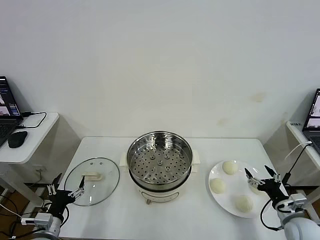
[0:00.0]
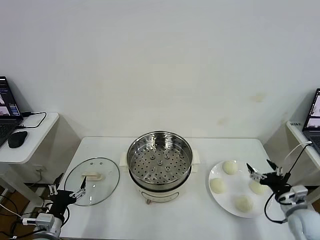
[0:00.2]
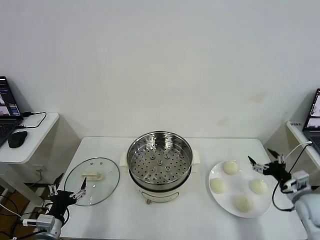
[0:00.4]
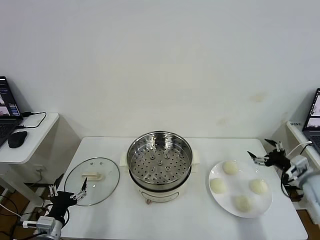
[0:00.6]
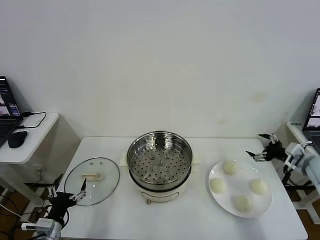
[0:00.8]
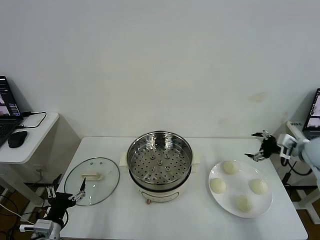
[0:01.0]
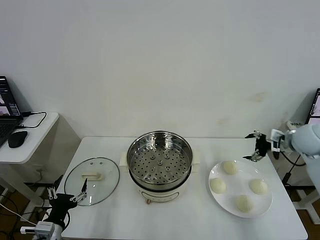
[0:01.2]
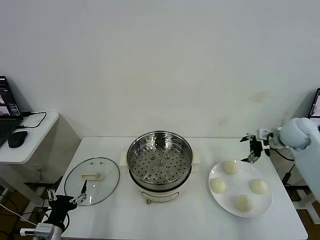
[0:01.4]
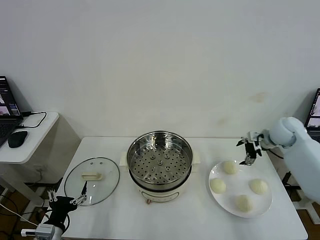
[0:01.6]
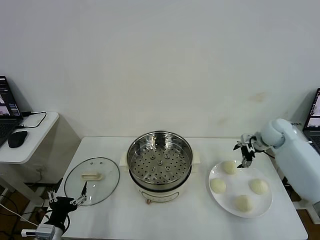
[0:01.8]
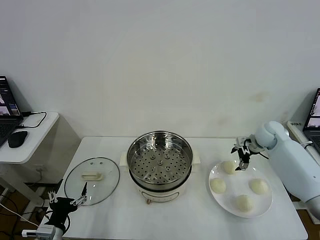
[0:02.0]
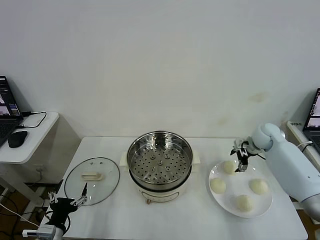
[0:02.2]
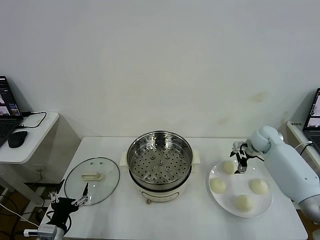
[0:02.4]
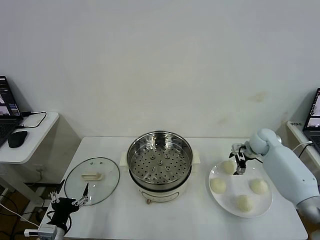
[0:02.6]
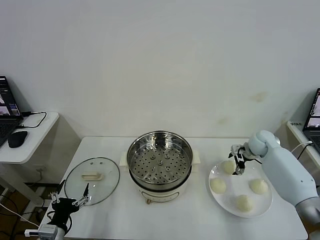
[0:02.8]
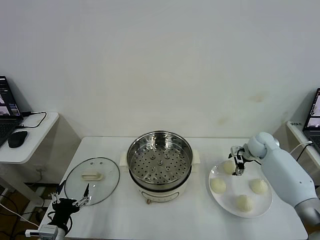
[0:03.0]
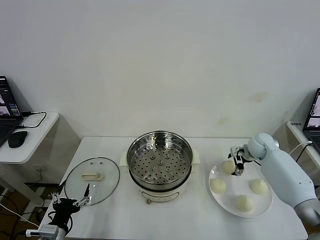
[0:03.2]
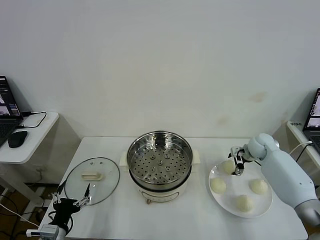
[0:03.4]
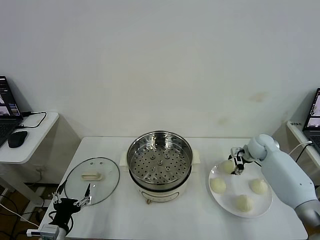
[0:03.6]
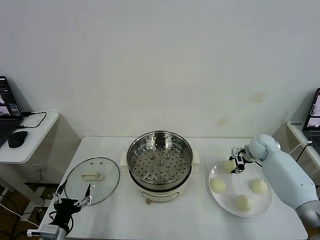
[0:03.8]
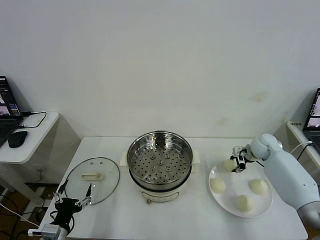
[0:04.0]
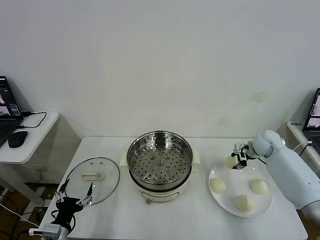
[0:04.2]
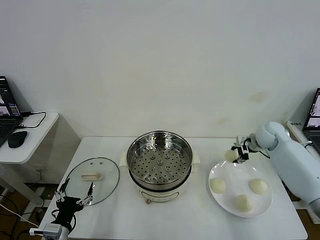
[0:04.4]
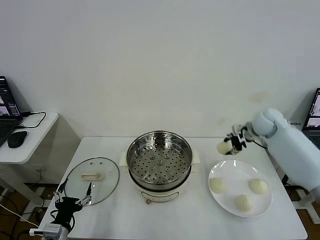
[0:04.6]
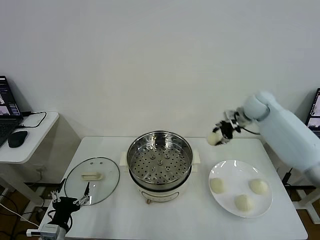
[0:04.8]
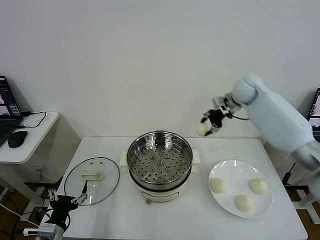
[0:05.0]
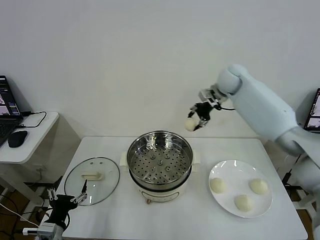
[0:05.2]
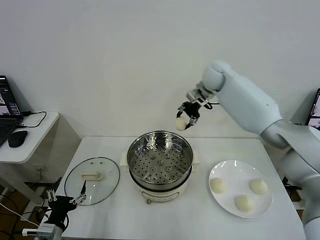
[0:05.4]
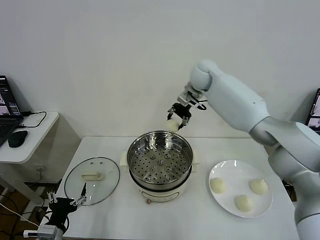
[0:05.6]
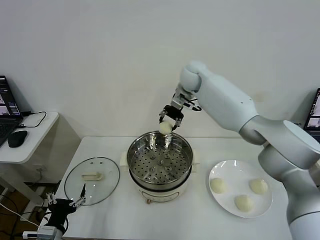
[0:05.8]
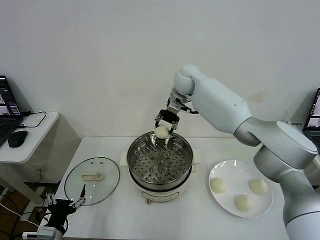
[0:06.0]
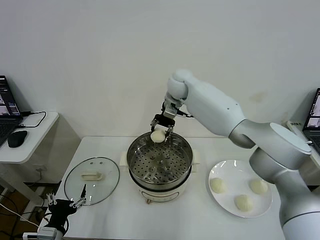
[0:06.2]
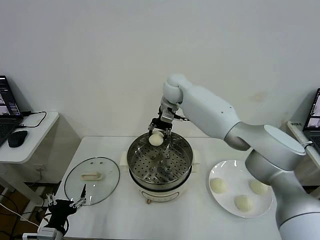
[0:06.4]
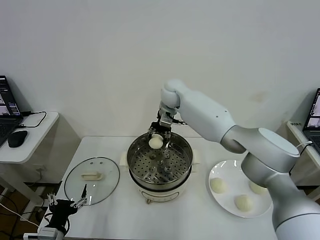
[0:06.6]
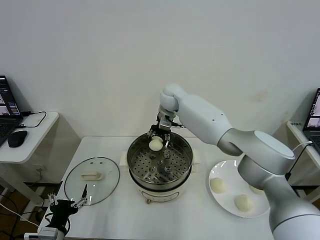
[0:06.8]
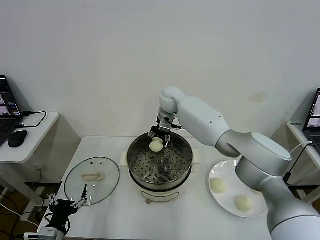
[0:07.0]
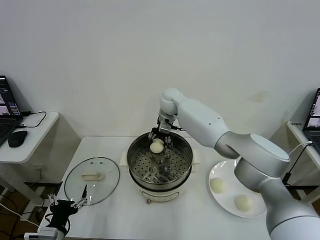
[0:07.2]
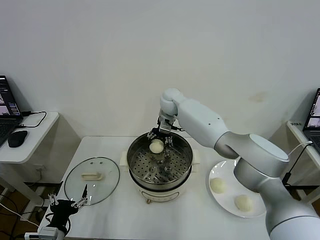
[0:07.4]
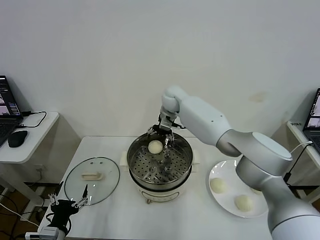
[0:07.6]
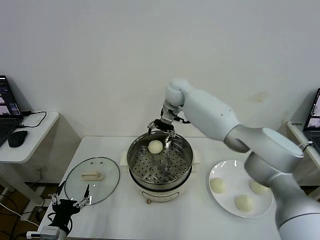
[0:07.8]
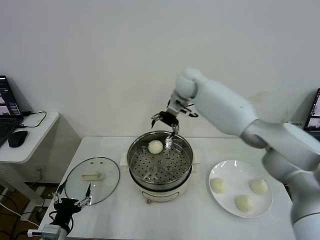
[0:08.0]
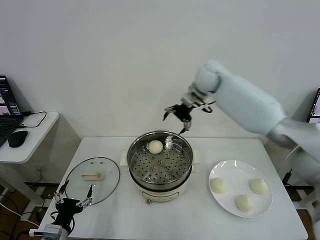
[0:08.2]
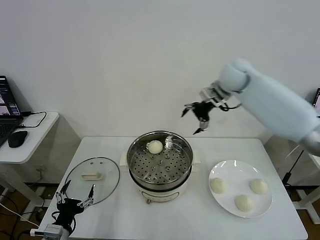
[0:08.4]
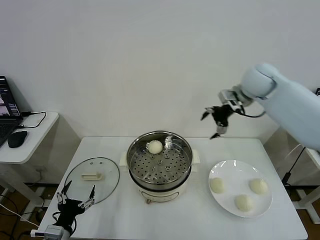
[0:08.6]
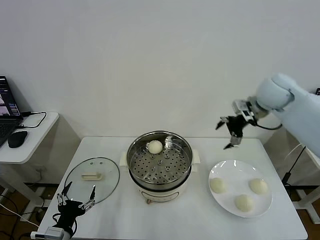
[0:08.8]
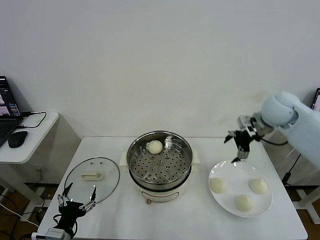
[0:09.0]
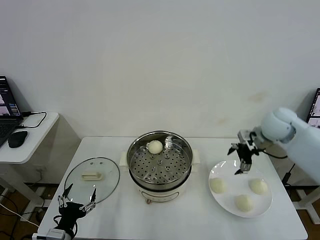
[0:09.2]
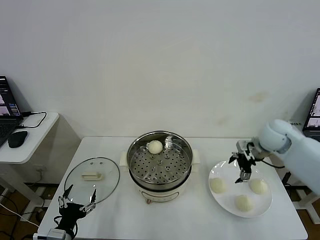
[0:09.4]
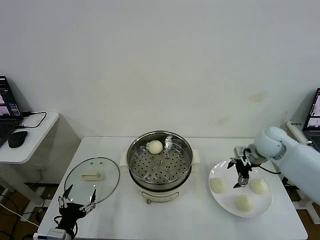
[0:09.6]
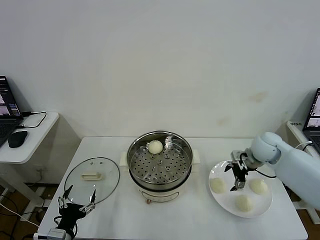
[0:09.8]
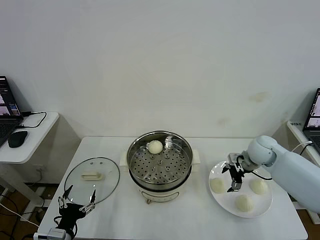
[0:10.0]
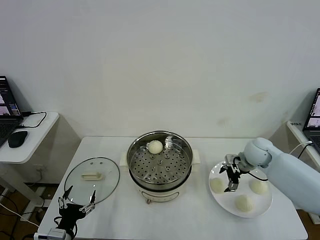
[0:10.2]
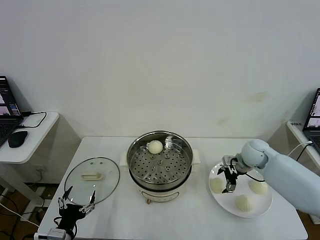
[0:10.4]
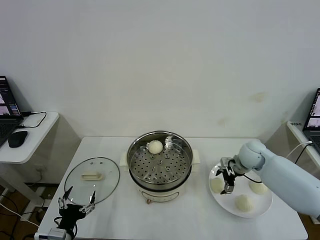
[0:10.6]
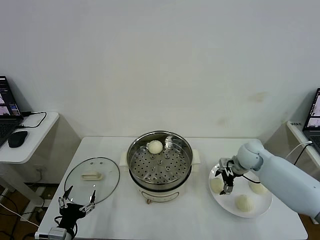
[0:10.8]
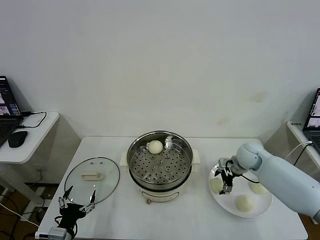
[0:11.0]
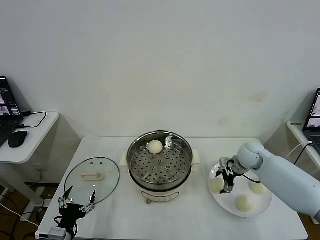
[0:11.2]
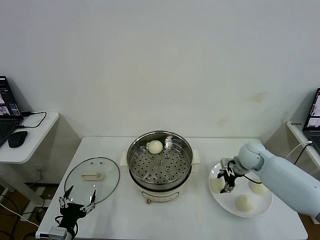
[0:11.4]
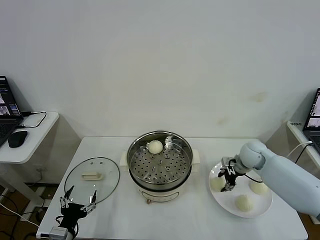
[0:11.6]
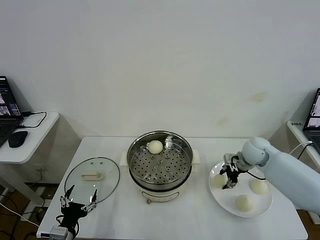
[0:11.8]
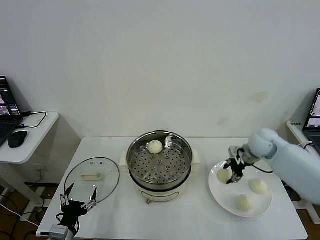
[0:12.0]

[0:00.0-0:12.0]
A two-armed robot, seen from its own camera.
Task of the whole recording: take steamed baozi put them in steamer then cover it.
Step, 0.0 to 3.6 s: Grasp the baozi in the plate with right gripper.
Step, 3.8 to 7.6 s: Place the baozi on the steamer with right gripper.
Step, 8.0 to 11.2 s: Grasp the baozi in the plate with right gripper.
1.6 to 3.0 s: The right gripper shifts roughly 10 cm downward.
3.0 to 4.4 s: The right gripper travels upward by approximately 10 cm, and closes its fingers.
4.4 to 6.0 s: The right gripper is displaced to the left by some 30 cm.
6.0 to 7.6 s: The right gripper opens.
7.6 to 9.0 s: The right gripper heads to the right and backward, covering some 35 cm.
9.0 to 10.4 s: The right gripper is displaced downward by about 15 cm.
10.4 to 12.0 s: The right gripper shifts approximately 10 cm upward, and closes.

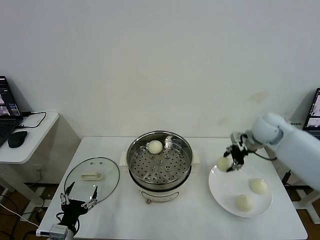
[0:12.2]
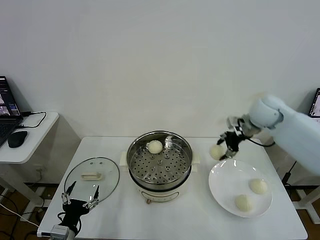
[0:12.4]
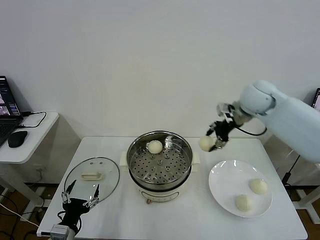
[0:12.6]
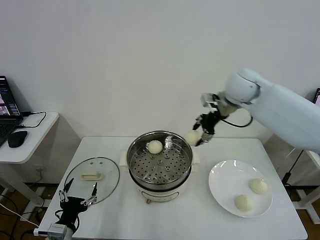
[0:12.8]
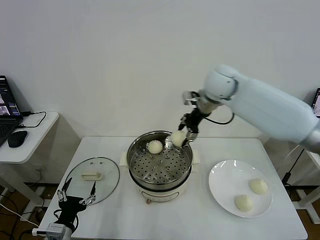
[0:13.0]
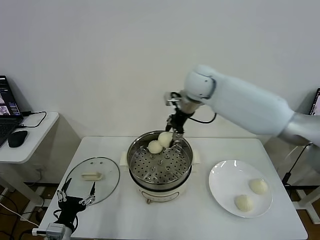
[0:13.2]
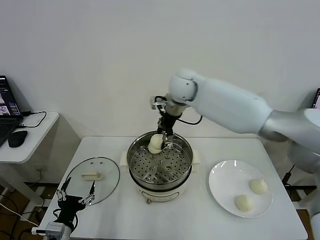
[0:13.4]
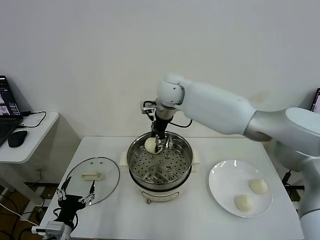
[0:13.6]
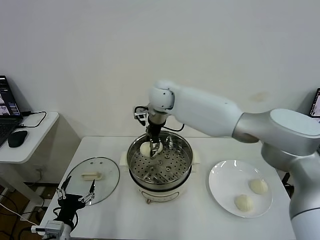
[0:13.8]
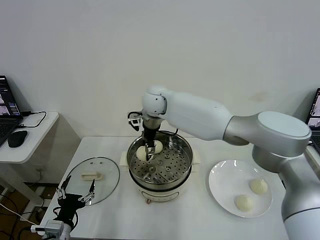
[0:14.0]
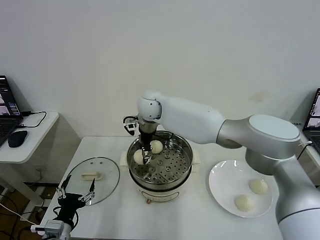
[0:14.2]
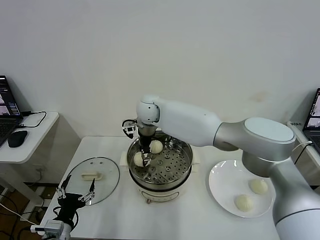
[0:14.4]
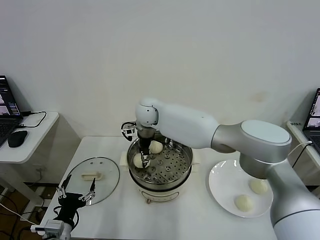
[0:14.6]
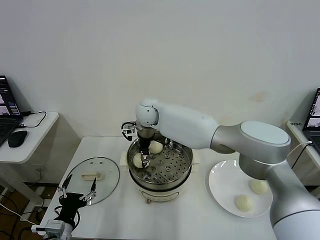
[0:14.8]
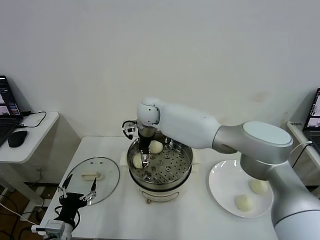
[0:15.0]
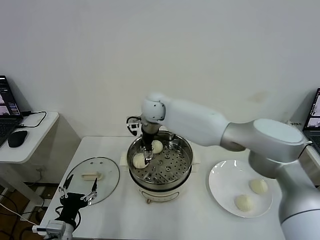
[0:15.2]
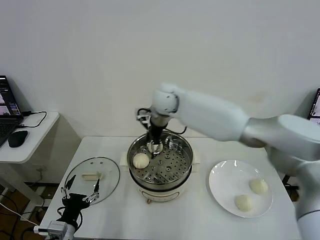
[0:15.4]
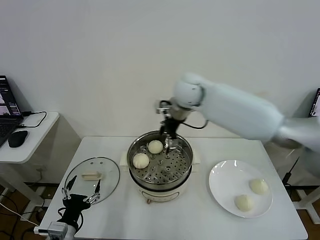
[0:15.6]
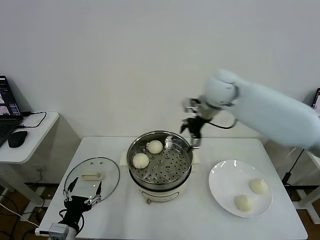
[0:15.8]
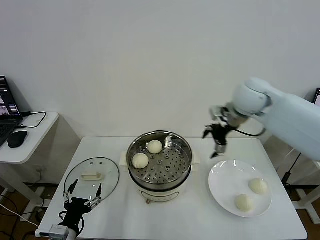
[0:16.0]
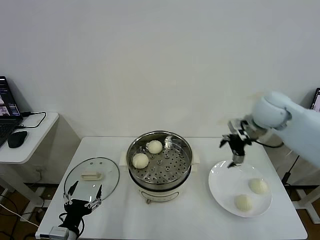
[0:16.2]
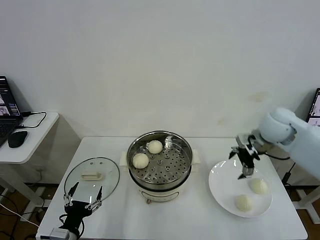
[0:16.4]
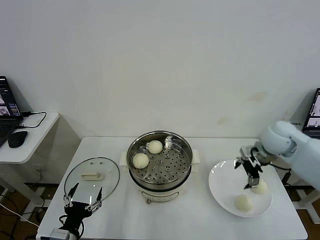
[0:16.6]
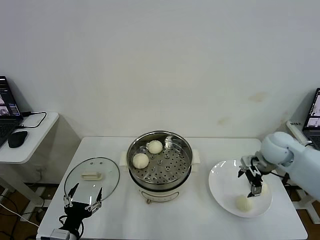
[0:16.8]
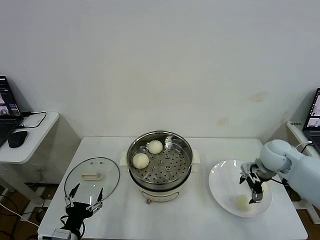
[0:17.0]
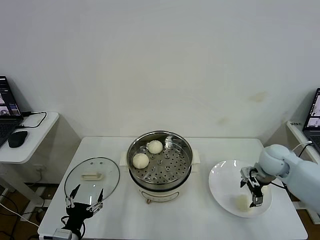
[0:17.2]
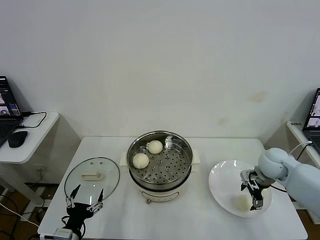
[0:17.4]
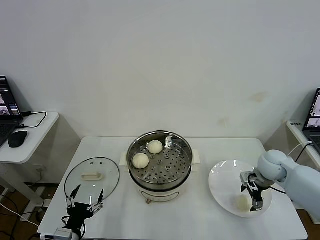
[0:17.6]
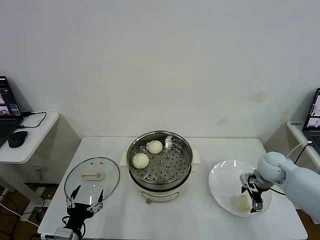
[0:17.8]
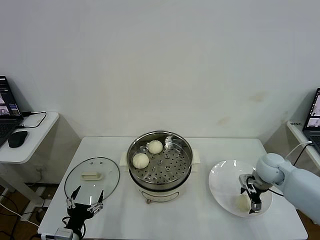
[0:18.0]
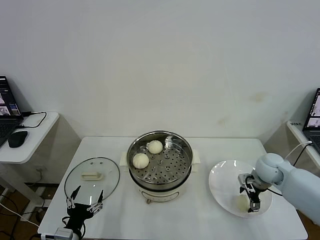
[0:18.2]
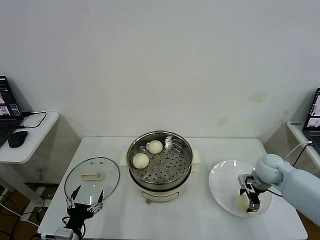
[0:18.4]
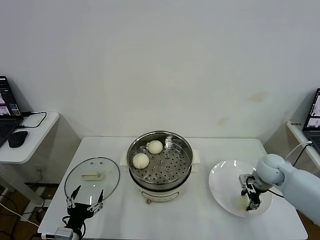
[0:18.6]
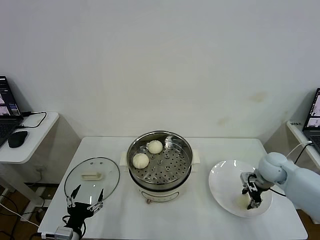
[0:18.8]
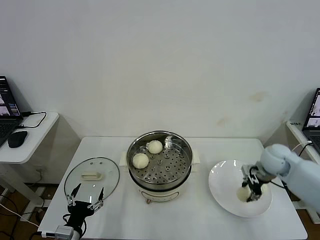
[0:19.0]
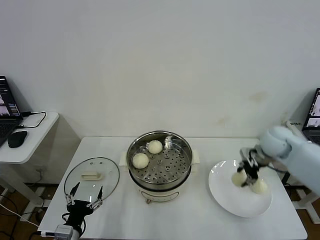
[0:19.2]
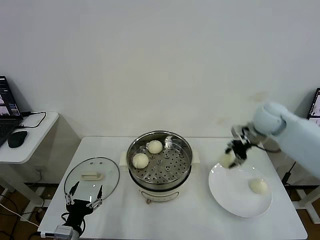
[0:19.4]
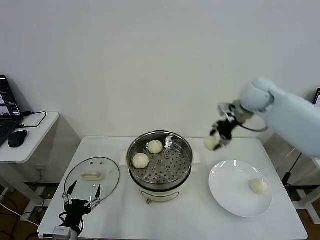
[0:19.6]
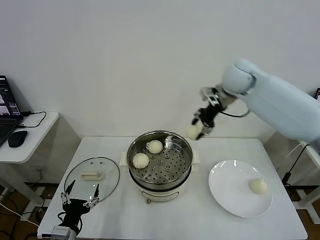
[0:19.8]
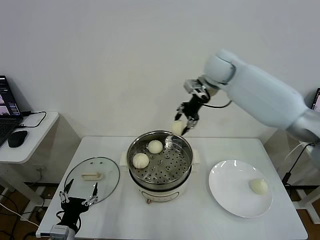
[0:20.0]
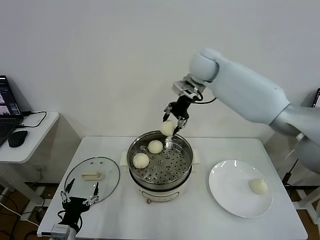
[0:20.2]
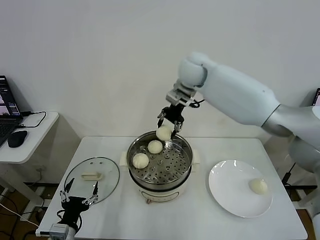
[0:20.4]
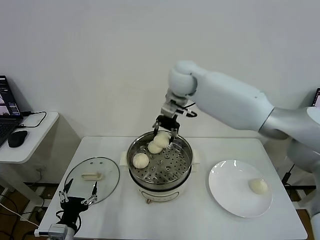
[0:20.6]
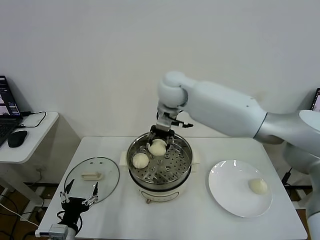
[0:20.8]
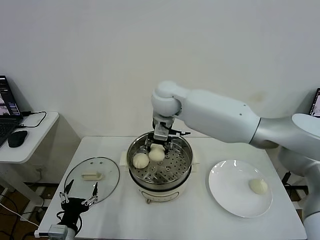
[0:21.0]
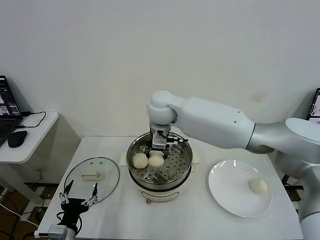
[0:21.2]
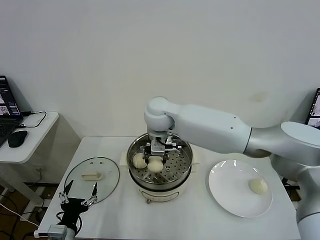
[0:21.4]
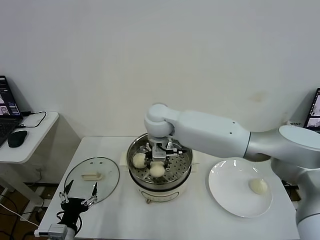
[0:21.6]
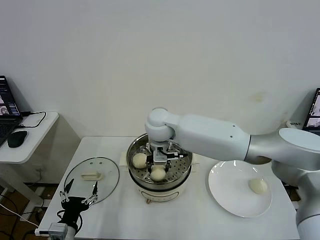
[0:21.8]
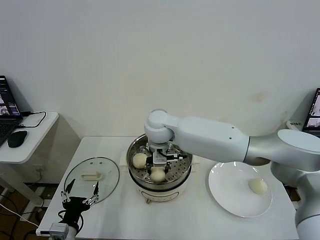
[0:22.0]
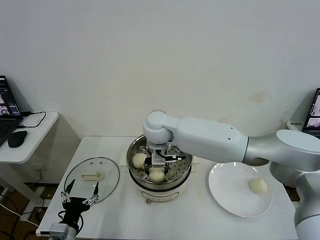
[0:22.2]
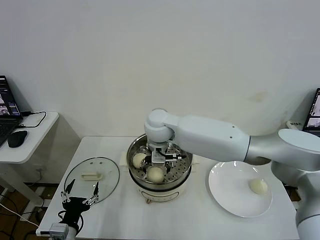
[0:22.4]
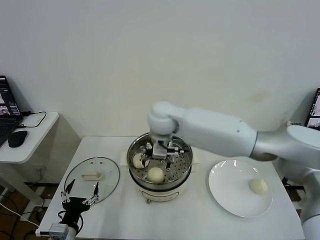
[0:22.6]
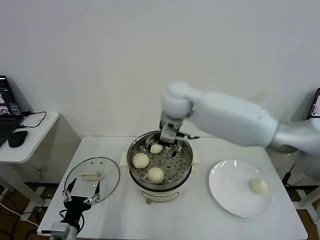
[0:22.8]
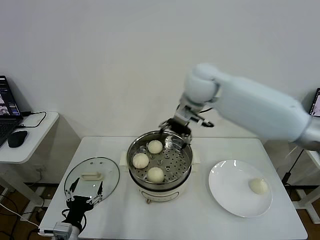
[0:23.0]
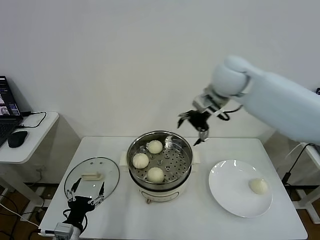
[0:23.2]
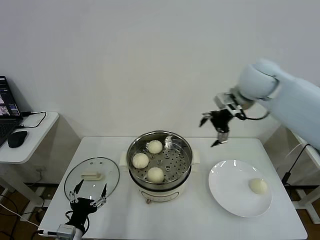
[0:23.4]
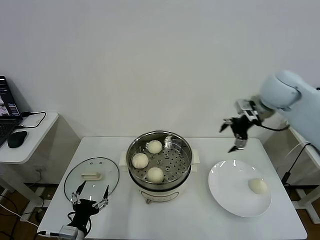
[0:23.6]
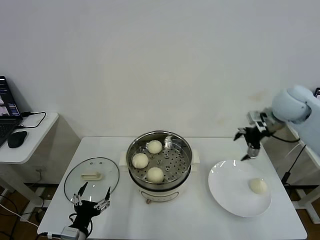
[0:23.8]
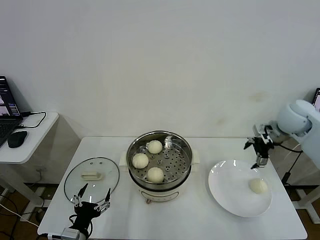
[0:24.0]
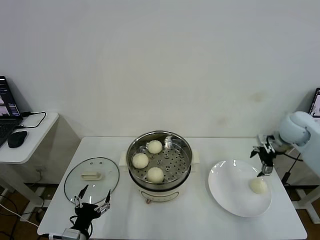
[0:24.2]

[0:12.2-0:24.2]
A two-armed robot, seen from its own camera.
Task of the whole recording: take steamed baozi put them in steamer then cover it.
Step, 12.2 to 15.0 s: Place the baozi on the steamer with right gripper.
Step, 15.2 to 18.8 s: Grasp the baozi in the plate with right gripper.
Step, 19.0 to 22.4 s: Place the baozi on the steamer with right gripper.
12.2 to 13.8 s: The right gripper goes some 35 cm to the left.
13.8 to 15.2 s: The right gripper opens up.
15.2 to 16.6 s: The right gripper travels to the right by some 35 cm.
16.6 to 18.2 s: The right gripper heads downward, covering approximately 10 cm.
18.2 to 19.8 s: The right gripper travels upward, to the left and forward by some 35 cm, and closes up.
19.8 to 21.2 s: The right gripper moves to the left, some 20 cm.
21.2 to 22.6 s: The right gripper opens its fingers.
22.6 to 24.2 s: The right gripper moves to the right, some 40 cm.
